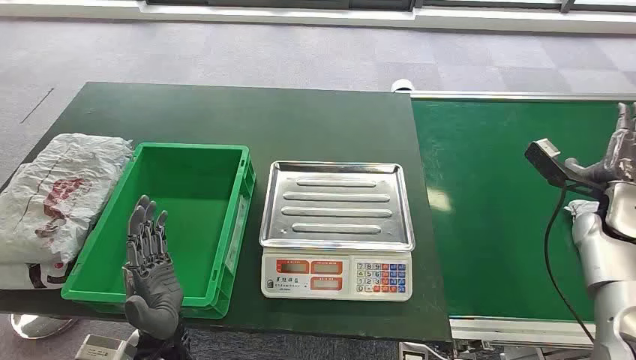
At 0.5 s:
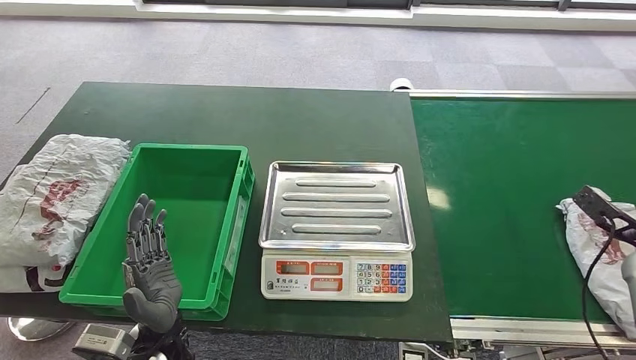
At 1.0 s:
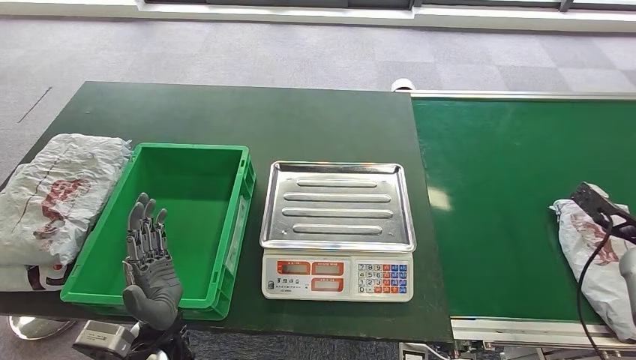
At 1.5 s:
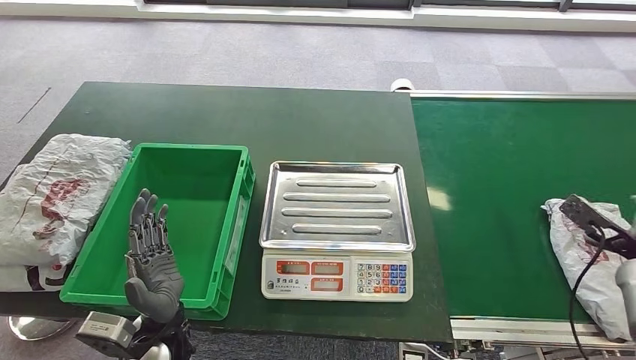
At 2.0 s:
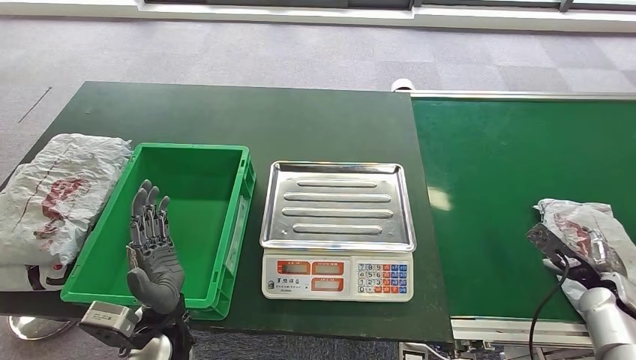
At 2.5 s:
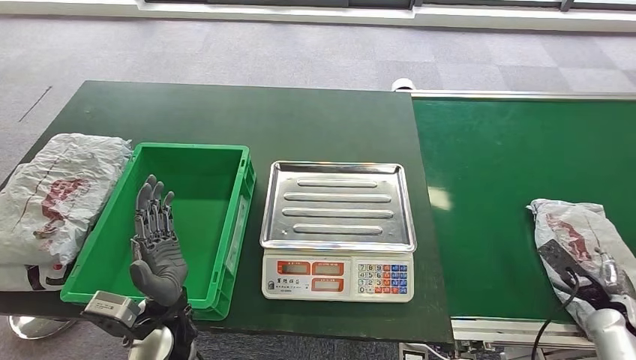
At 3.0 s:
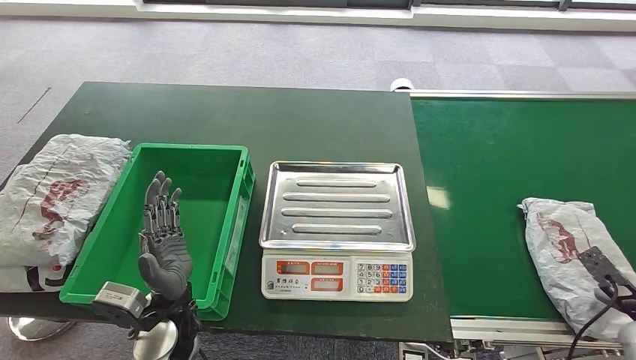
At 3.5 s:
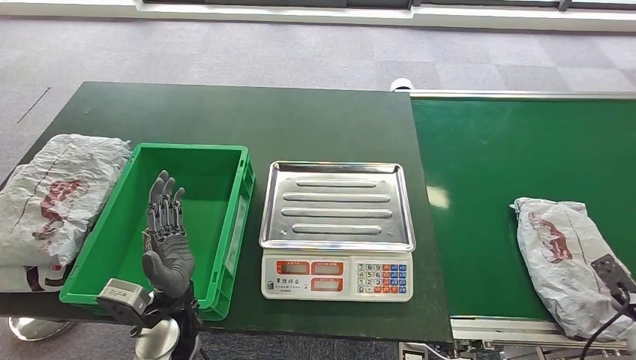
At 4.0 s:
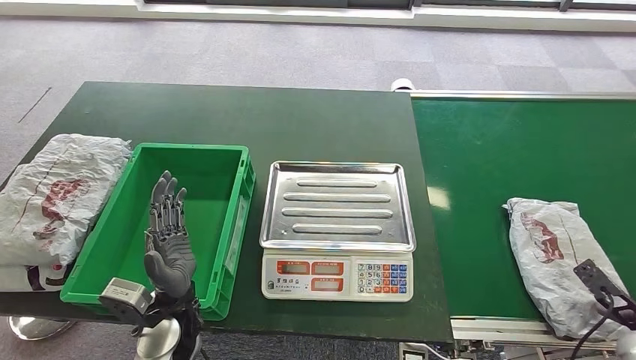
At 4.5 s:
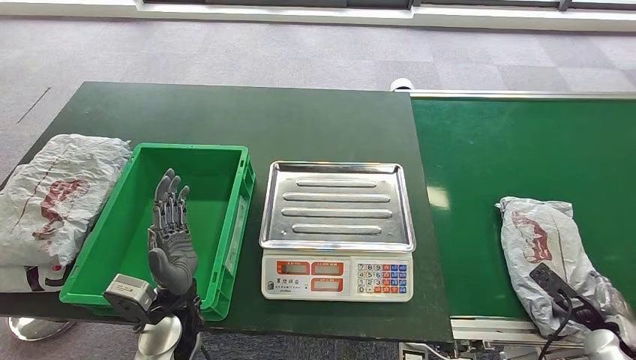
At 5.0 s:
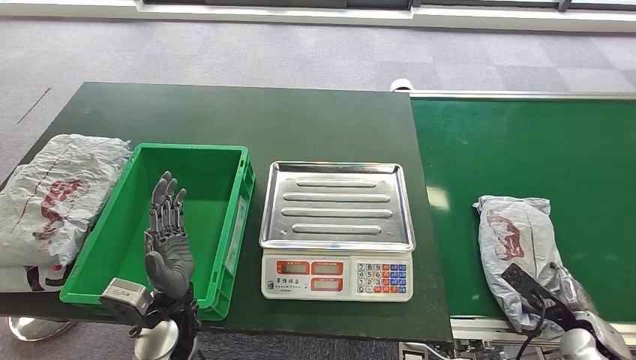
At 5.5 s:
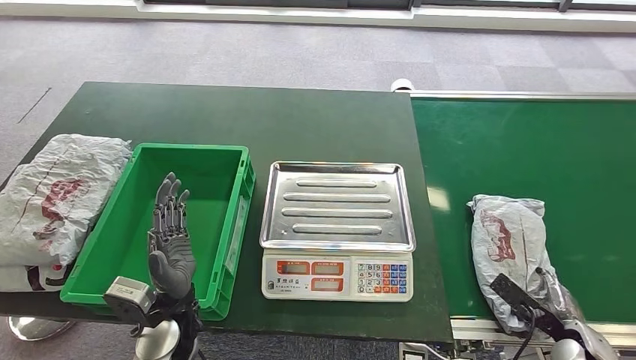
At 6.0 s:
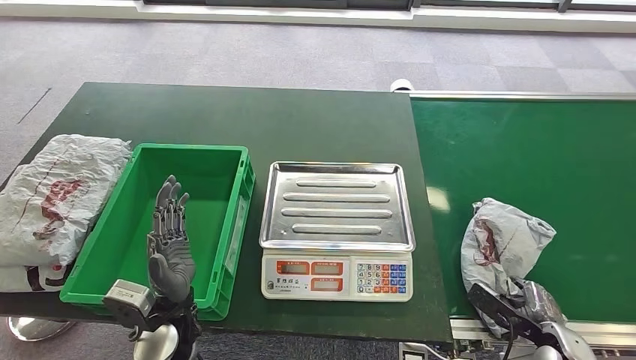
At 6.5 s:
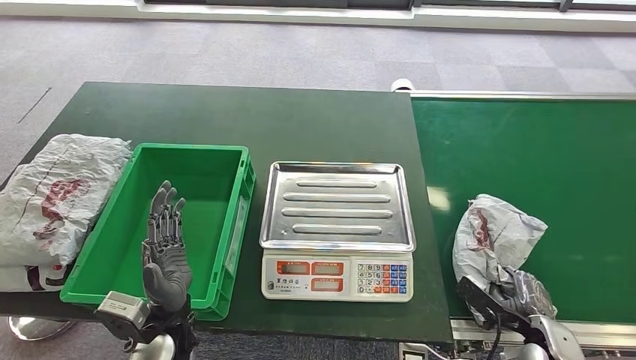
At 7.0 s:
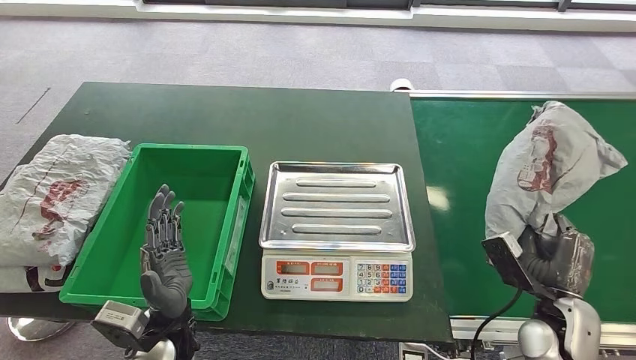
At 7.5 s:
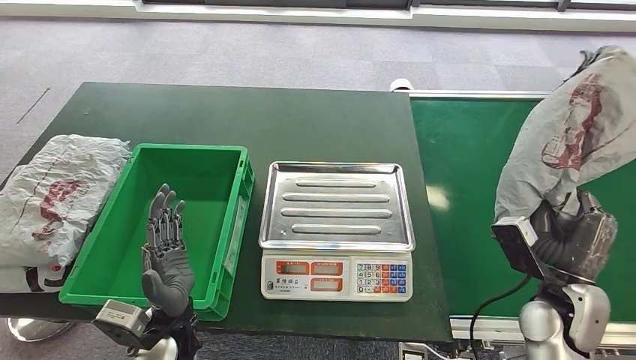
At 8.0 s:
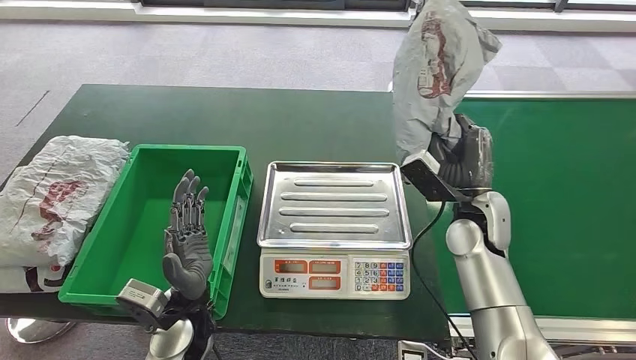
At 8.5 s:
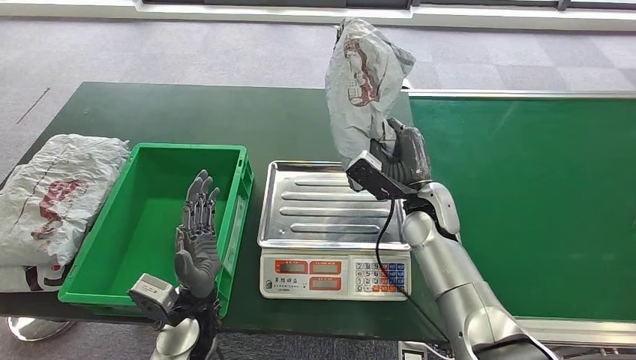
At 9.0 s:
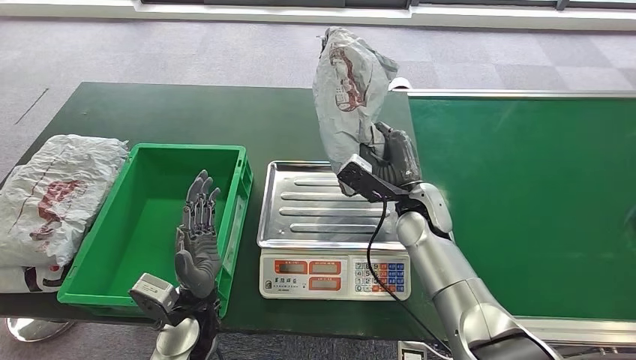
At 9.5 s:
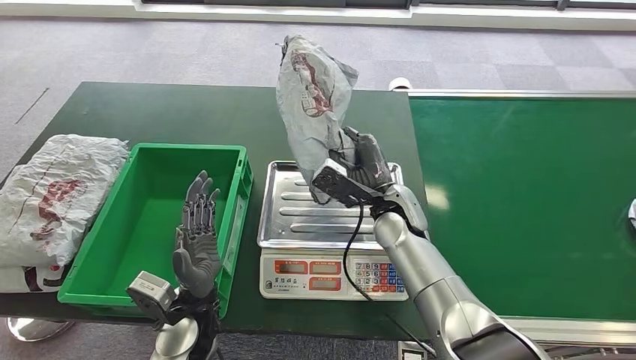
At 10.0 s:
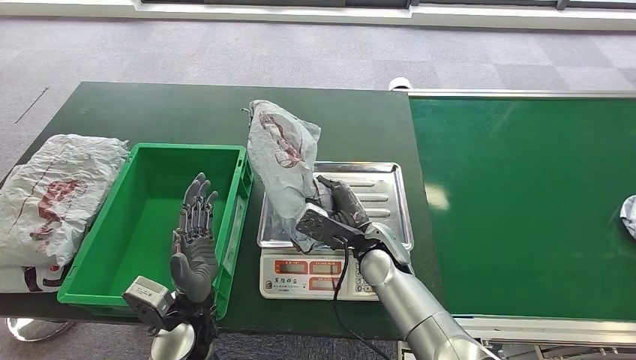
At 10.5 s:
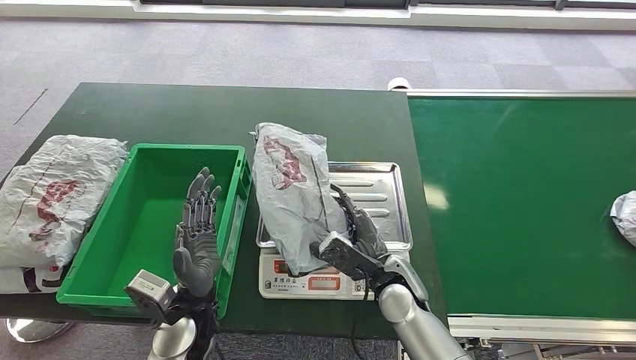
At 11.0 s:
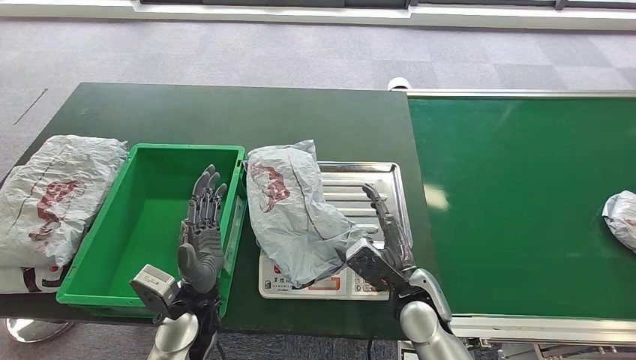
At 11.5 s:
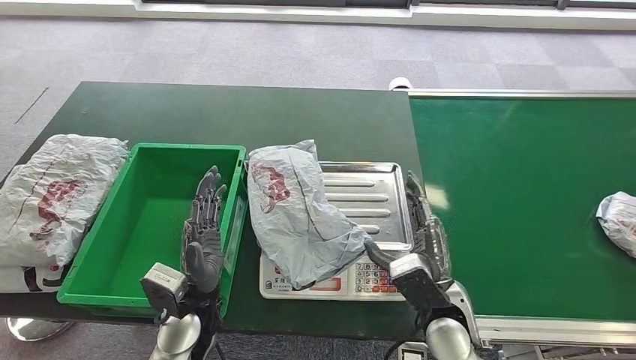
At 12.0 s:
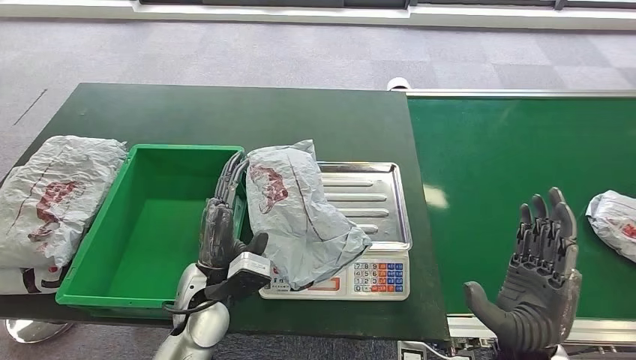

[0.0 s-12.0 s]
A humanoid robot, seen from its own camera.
Step, 0.0 to 7.0 s: Take the parcel off the conveyor belt.
Step, 8.0 to 11.5 s: Place the parcel onto the inbound machine.
2.0 to 4.0 s: The right hand moves backward, about 5 cm.
4.0 to 6.0 s: The right hand is displaced to the left by roughly 15 cm.
10.0 to 12.0 s: The right hand is displaced backward and to the right by roughly 20 cm.

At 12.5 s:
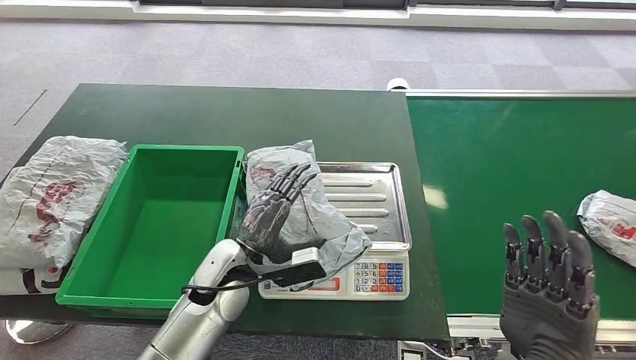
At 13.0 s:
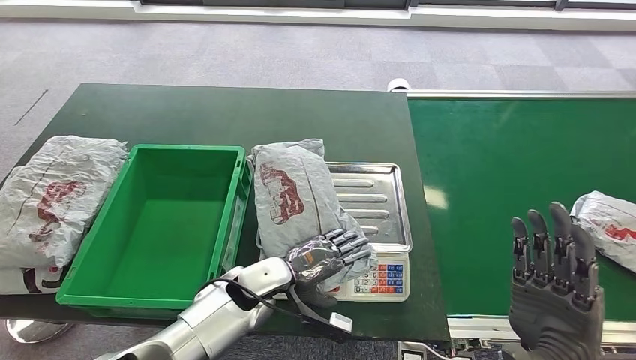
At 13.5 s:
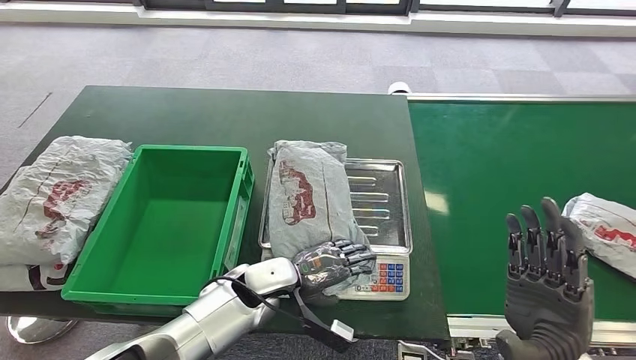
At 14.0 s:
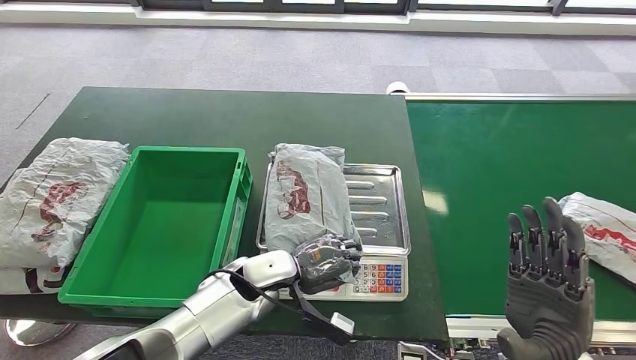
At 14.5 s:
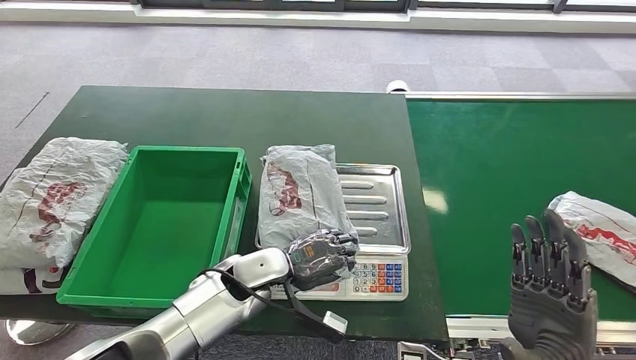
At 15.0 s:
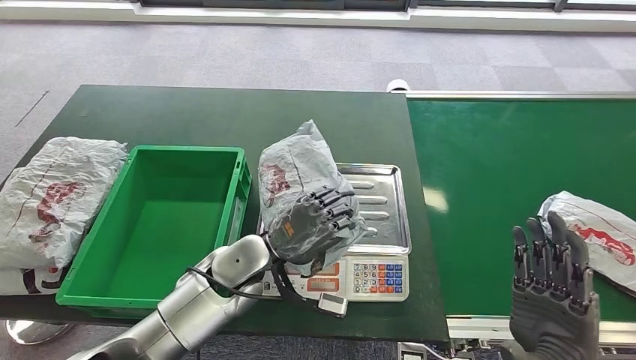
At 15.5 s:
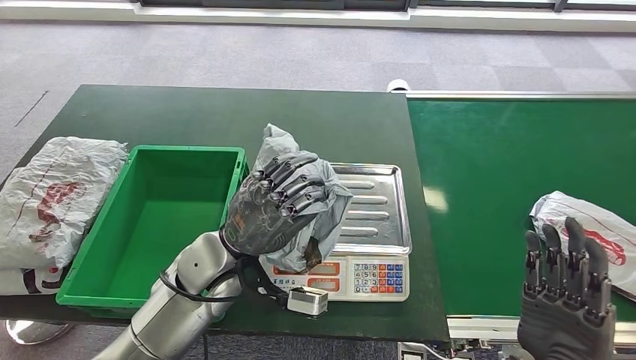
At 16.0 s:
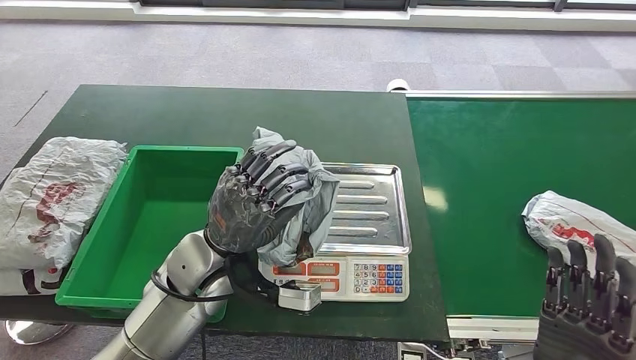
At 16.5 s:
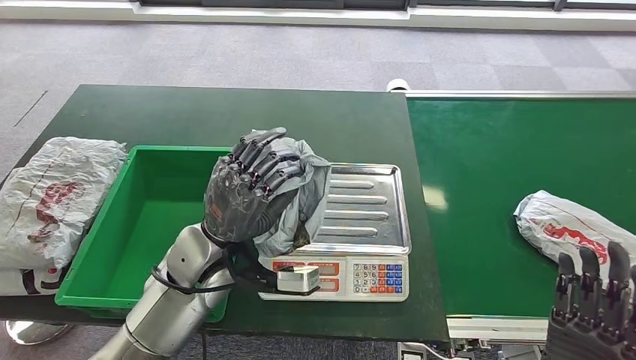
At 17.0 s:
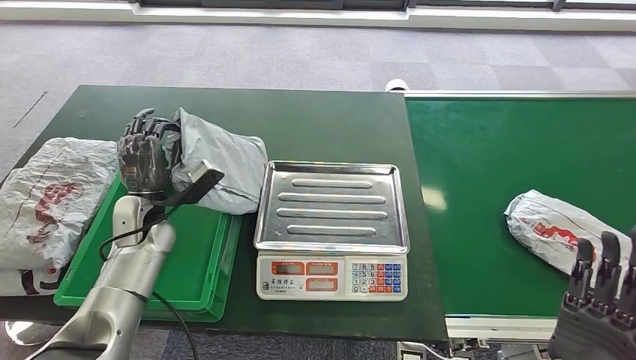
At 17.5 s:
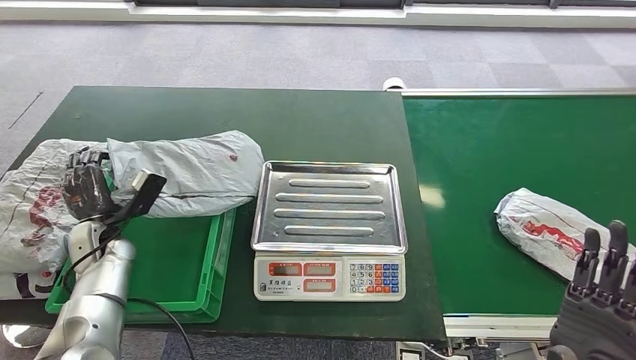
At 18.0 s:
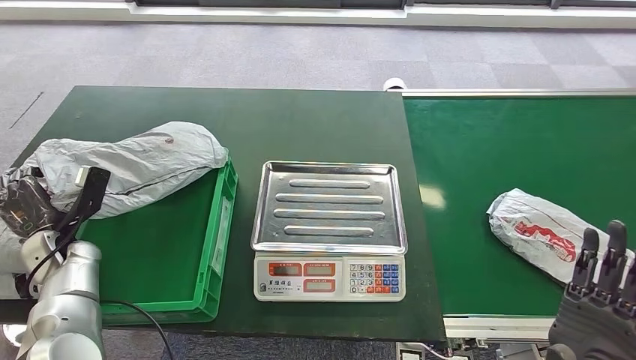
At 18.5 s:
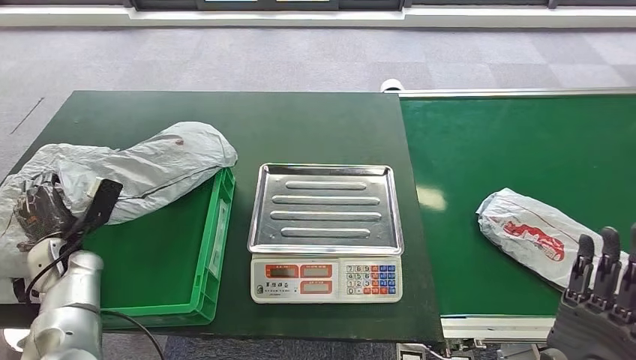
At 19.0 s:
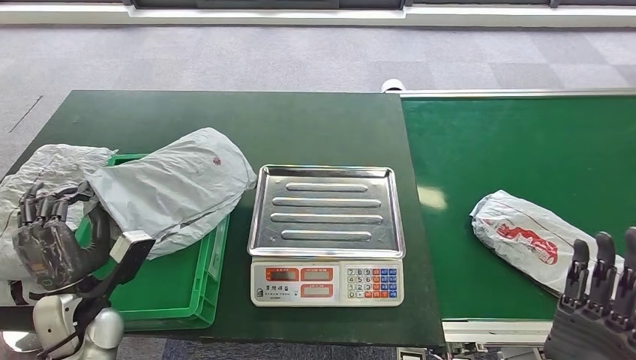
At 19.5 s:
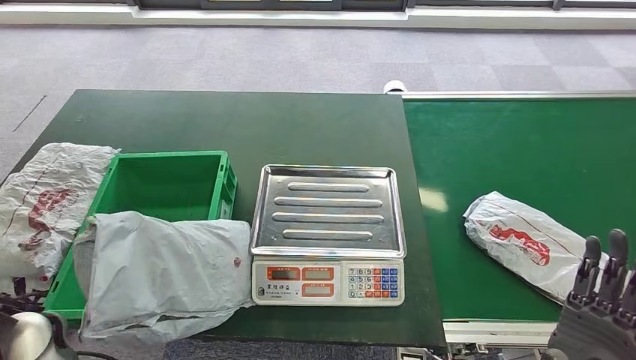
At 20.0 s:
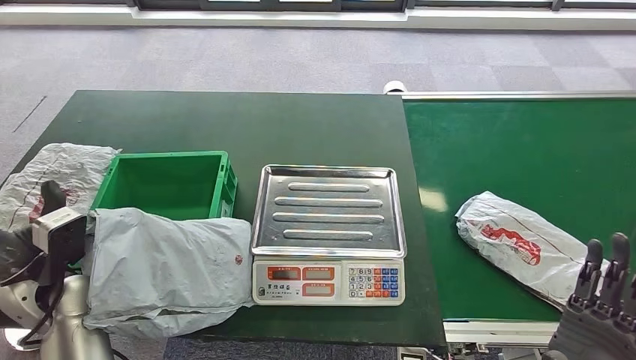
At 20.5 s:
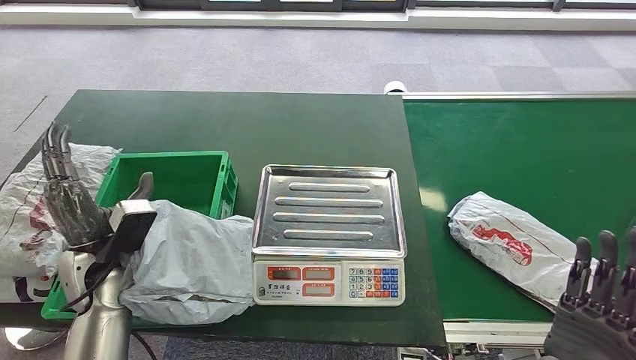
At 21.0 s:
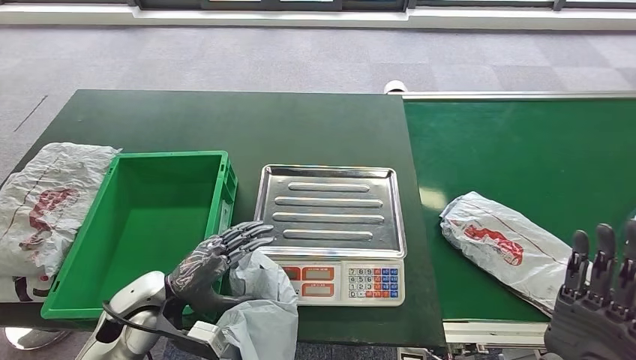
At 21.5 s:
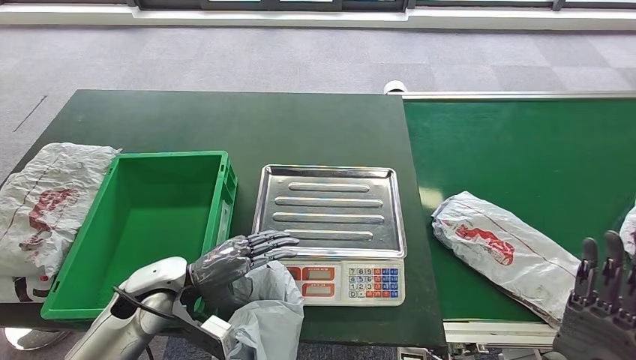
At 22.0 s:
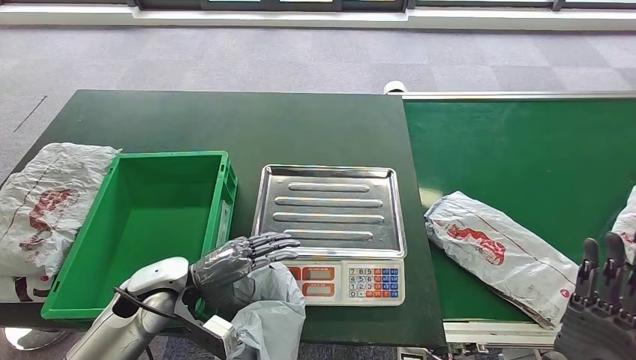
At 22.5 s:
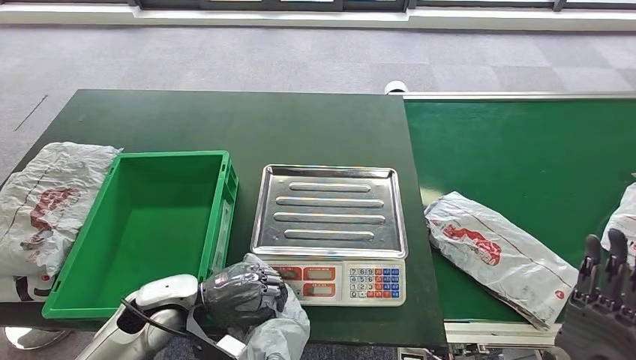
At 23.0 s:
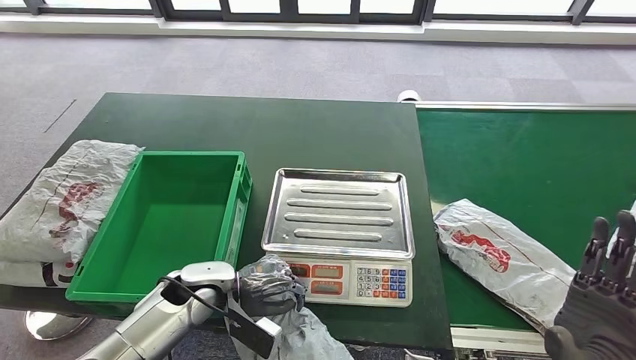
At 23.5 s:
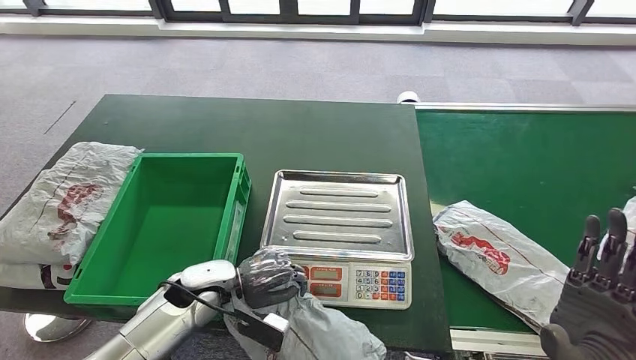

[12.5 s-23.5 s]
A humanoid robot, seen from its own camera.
Step, 12.5 to 16.5 s: Pick up the parcel from the inbound machine.
